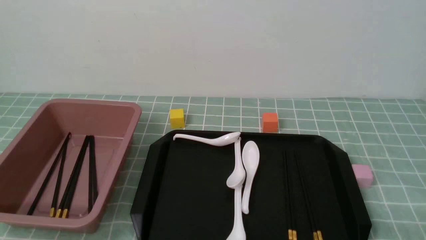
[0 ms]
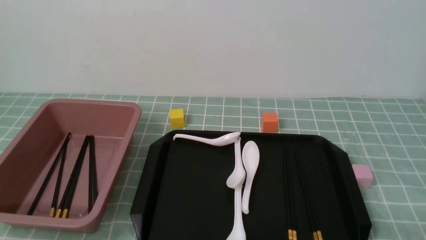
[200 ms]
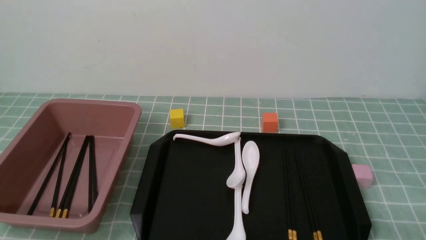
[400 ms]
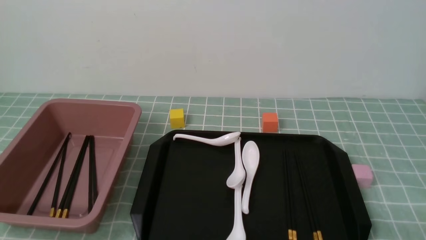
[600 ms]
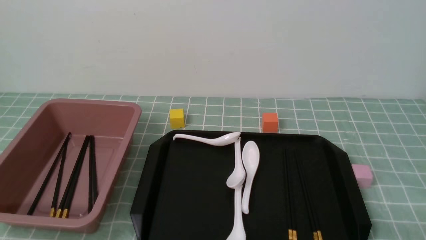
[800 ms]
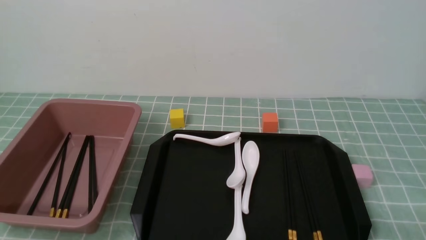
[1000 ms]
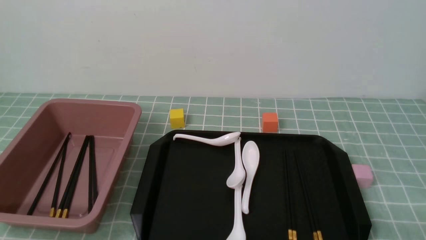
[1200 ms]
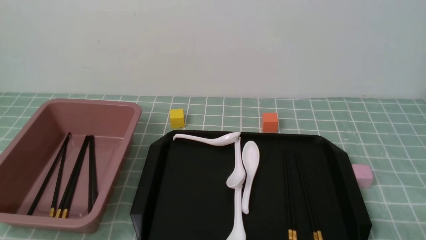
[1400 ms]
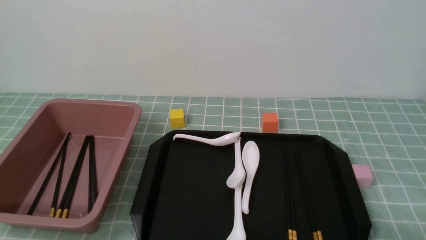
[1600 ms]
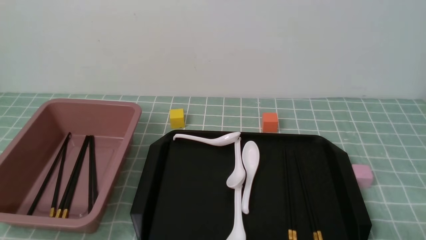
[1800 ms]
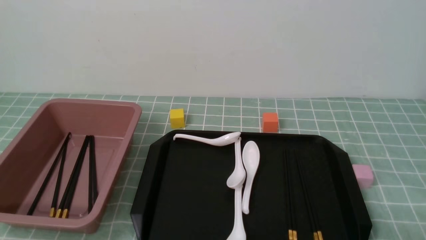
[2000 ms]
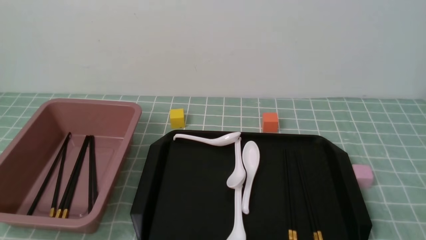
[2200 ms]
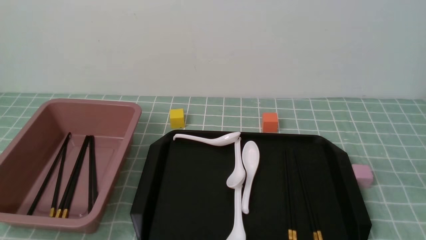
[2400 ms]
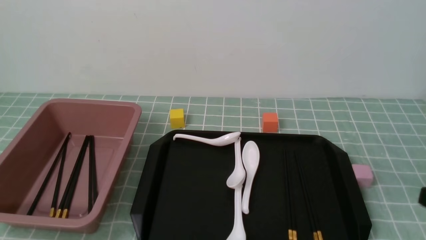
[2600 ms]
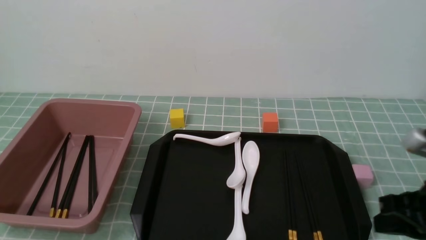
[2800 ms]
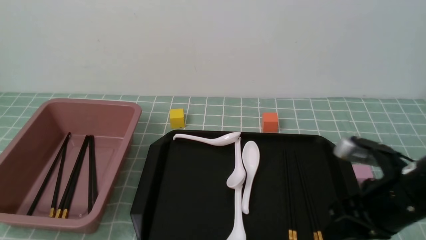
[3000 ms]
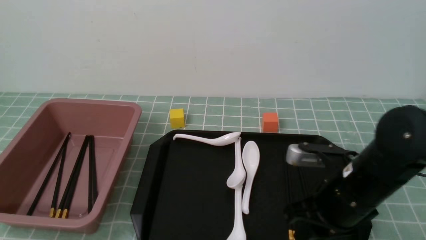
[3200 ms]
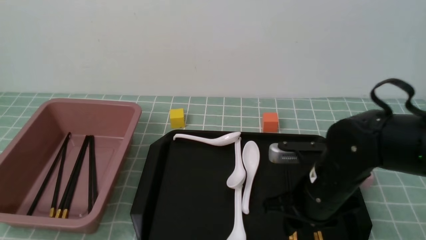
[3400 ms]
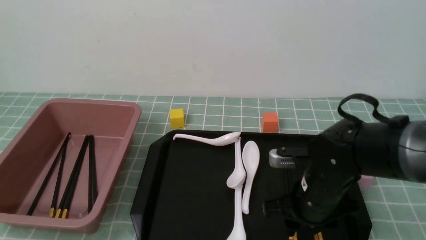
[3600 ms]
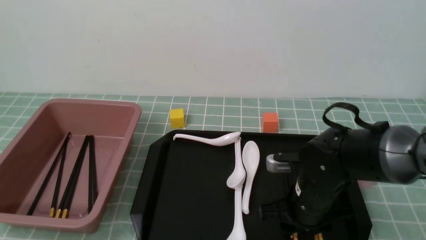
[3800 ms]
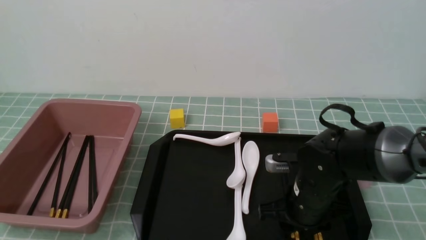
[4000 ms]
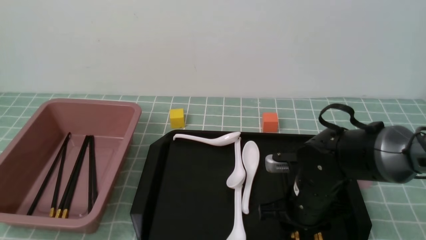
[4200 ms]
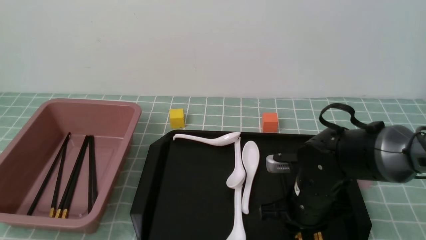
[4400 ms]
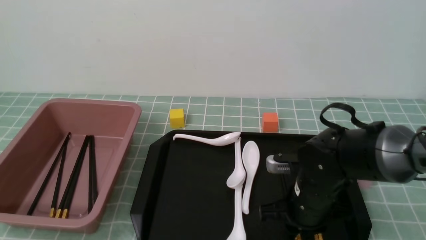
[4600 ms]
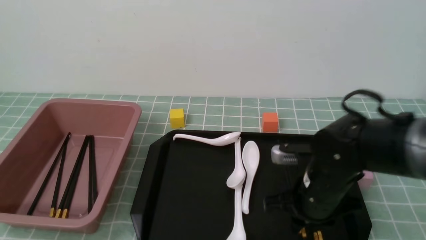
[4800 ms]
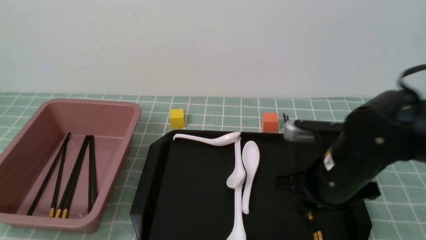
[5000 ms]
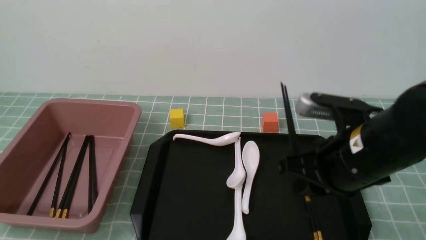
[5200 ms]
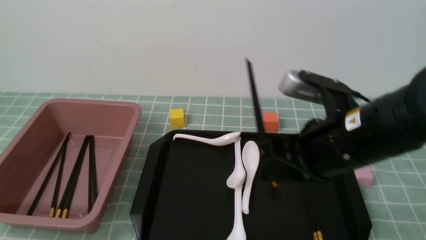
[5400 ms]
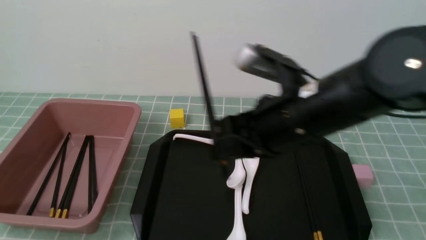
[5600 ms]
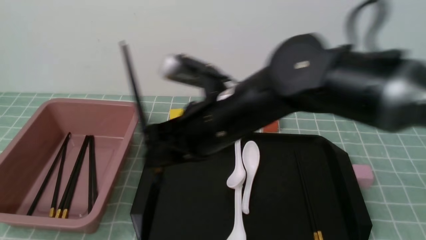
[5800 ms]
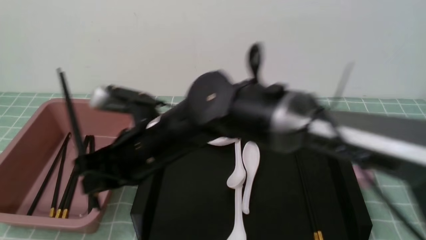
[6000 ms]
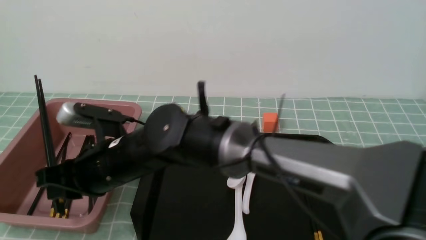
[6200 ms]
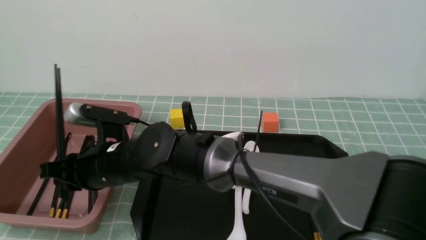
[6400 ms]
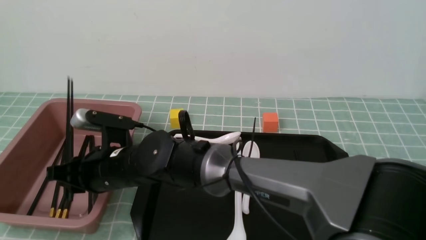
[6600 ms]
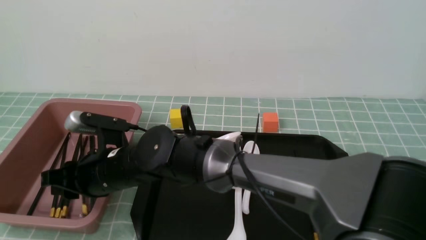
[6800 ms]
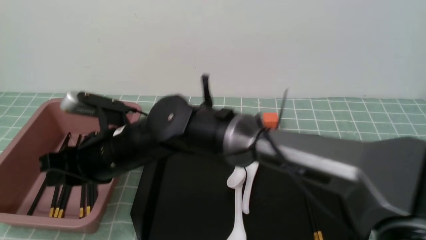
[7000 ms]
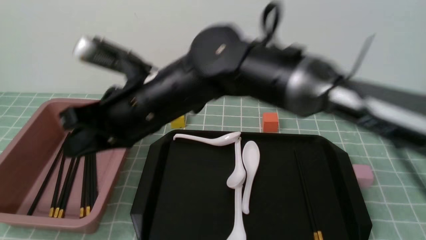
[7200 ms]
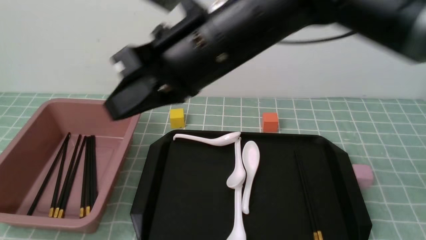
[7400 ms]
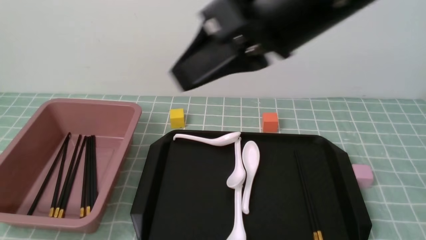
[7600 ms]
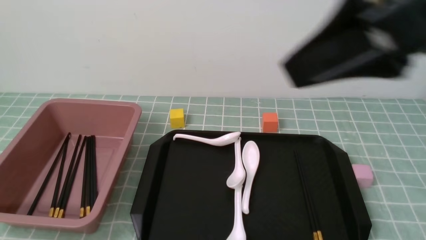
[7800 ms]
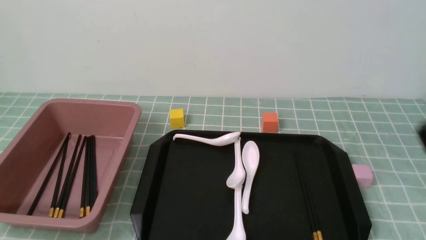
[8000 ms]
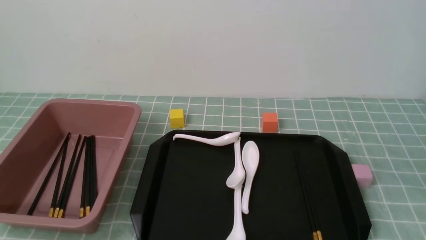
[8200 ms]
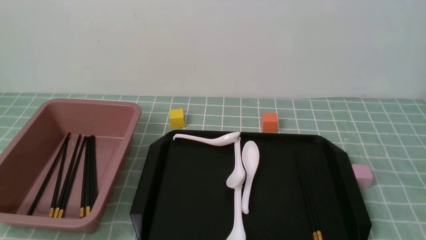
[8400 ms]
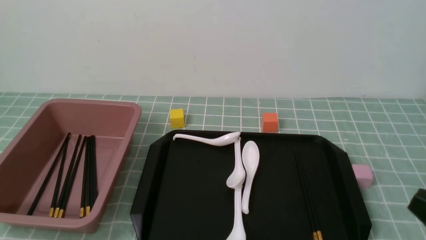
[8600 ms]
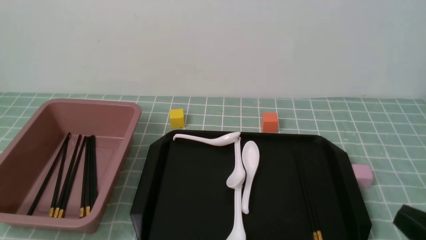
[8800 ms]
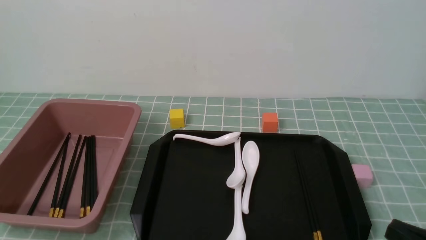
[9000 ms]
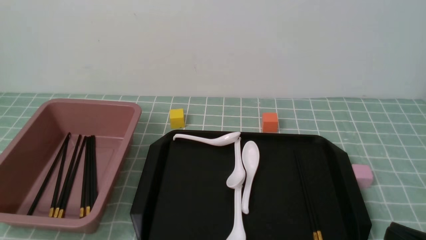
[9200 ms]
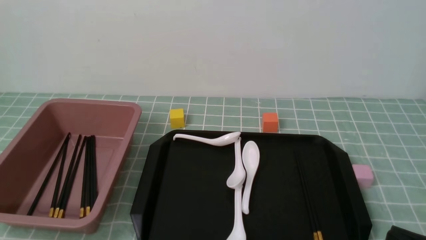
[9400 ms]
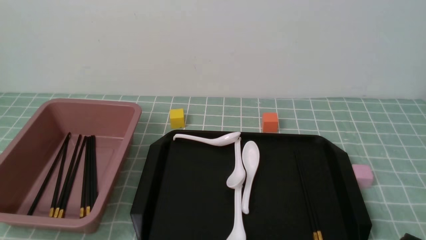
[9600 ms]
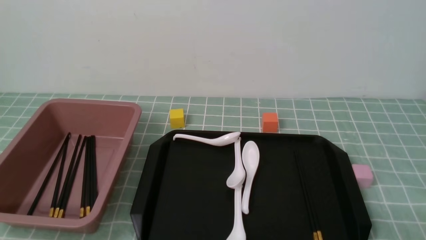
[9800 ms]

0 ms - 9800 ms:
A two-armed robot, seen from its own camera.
Step, 0 ms - 5000 ms: use the right arm to grab a pair of chopsticks.
Step, 5200 ms - 7000 ms: use the right arm to put the chopsticks into the lunch box.
1400 ms - 2800 ms: The right gripper goes roughly 15 cm forward and upward, and closes up.
2800 ms - 4200 ms: The right gripper shifts some 20 cm to the left, downward and forward, and opens up.
4200 ms - 5600 ms: The right gripper goes about 15 cm upward, and closes.
5600 ms - 7000 ms: The right gripper shifts about 20 cm to the left.
7000 ms - 8400 ms: The right gripper is displaced to the right and backward by approximately 40 cm, and closes its fingers.

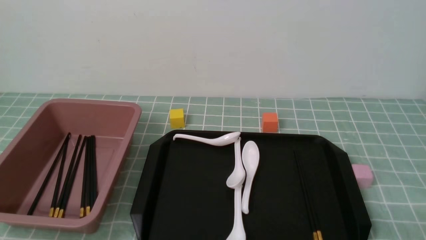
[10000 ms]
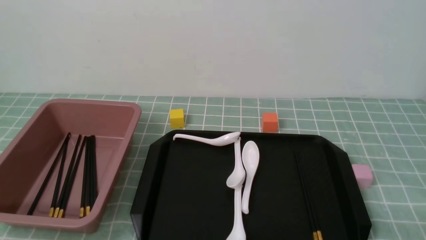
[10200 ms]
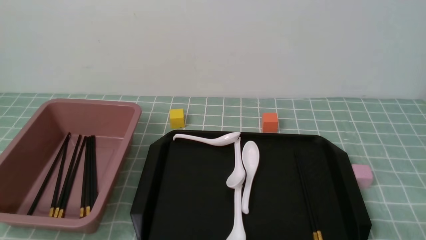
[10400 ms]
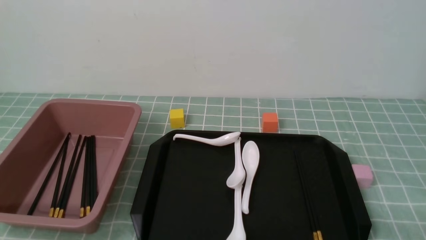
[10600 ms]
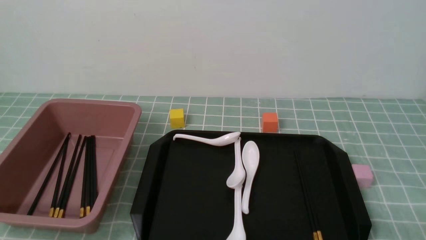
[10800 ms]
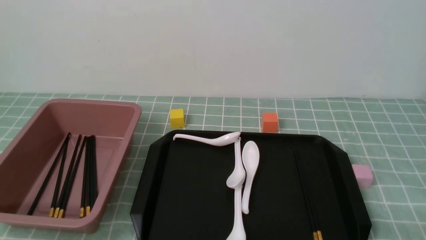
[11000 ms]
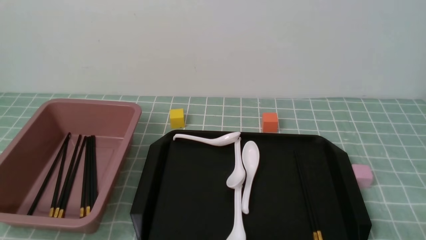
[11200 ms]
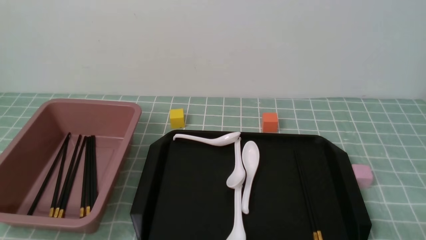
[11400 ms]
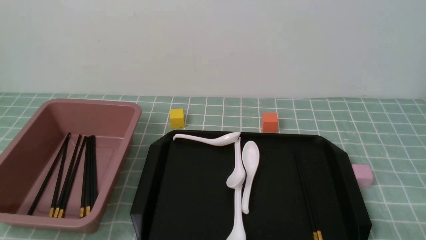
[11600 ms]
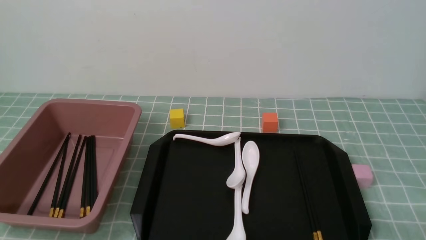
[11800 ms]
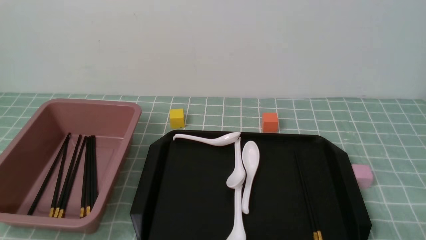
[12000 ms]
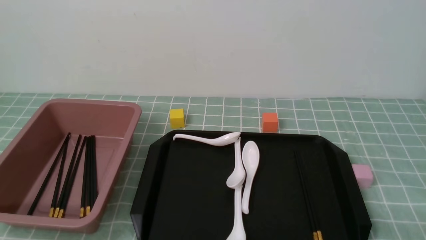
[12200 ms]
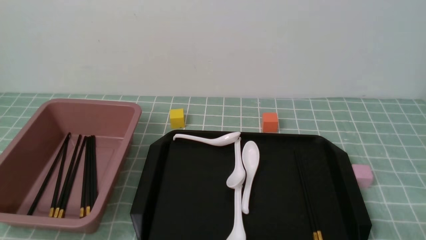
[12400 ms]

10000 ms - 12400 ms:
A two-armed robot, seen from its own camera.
11200 ms - 12400 ms: Both grippers stay about where they are.

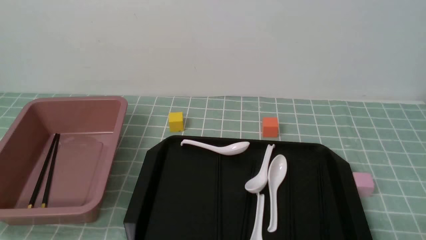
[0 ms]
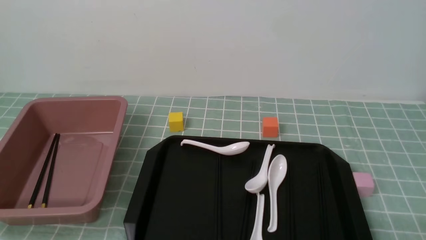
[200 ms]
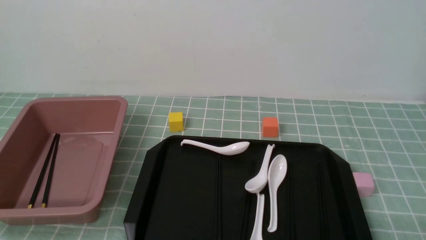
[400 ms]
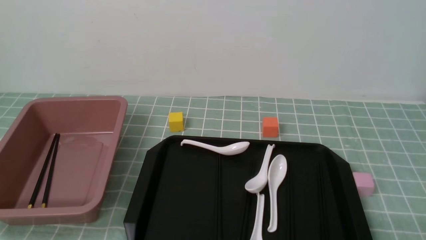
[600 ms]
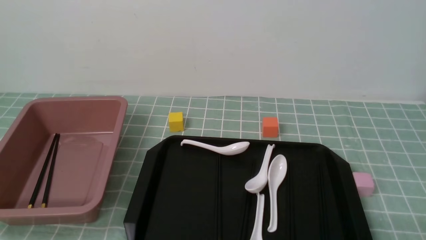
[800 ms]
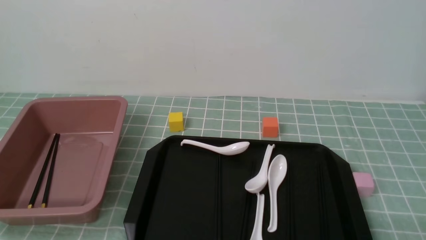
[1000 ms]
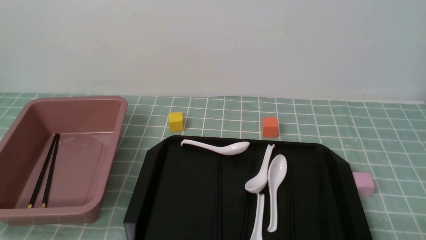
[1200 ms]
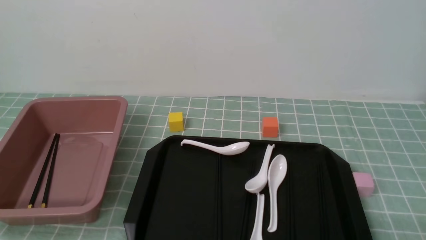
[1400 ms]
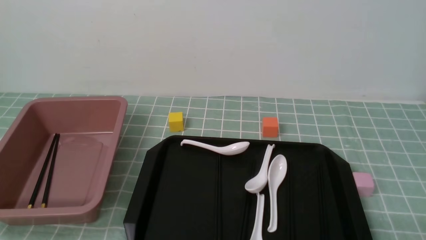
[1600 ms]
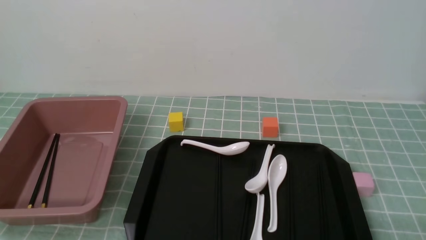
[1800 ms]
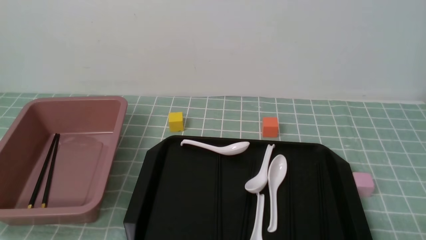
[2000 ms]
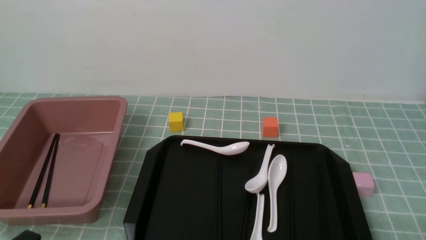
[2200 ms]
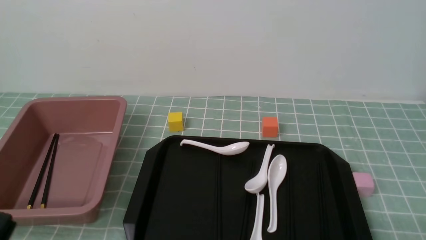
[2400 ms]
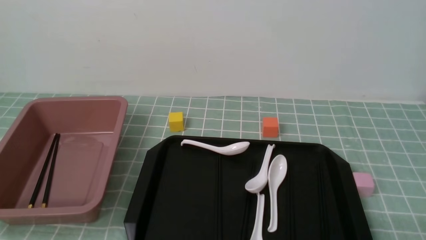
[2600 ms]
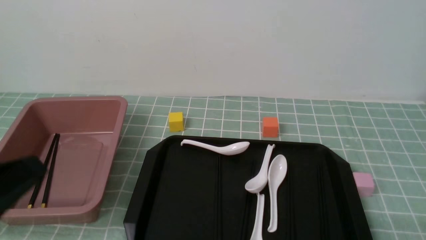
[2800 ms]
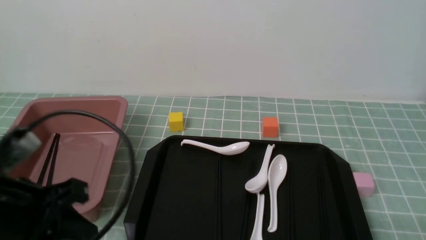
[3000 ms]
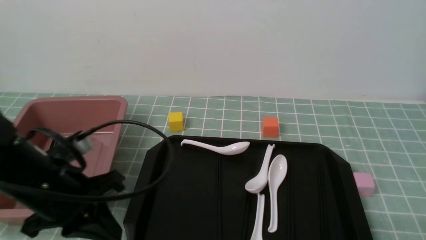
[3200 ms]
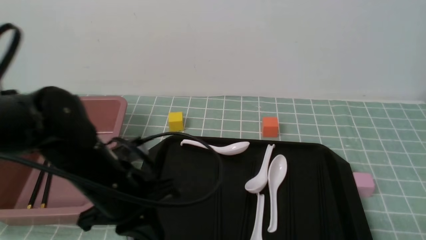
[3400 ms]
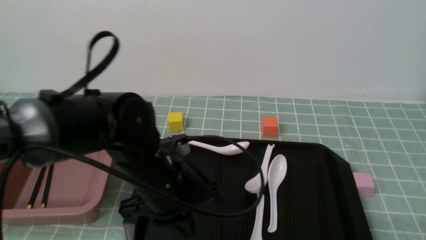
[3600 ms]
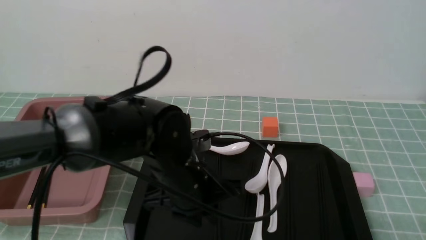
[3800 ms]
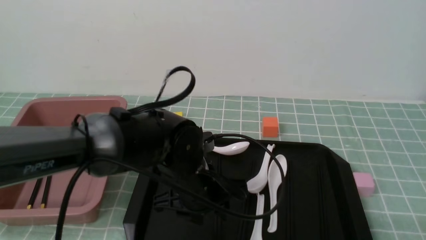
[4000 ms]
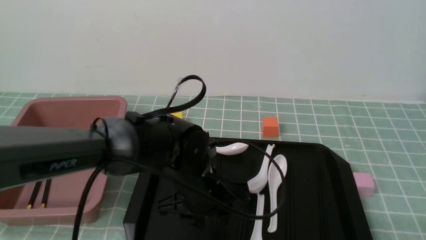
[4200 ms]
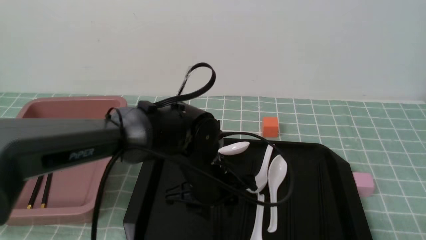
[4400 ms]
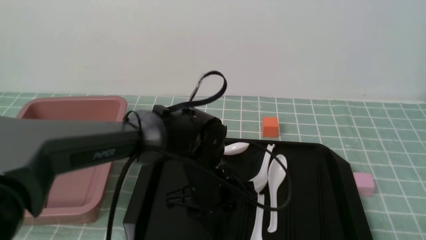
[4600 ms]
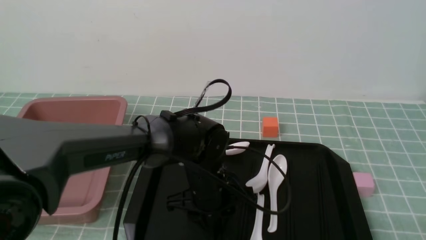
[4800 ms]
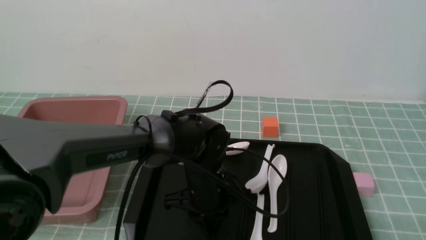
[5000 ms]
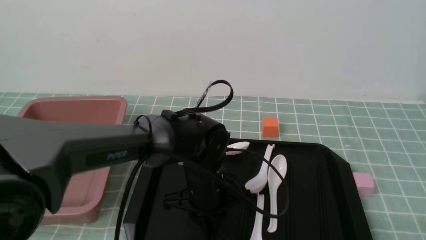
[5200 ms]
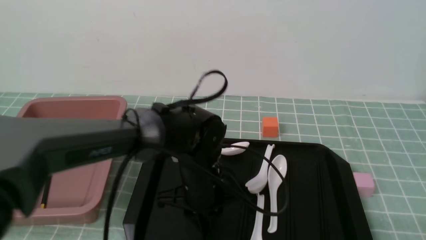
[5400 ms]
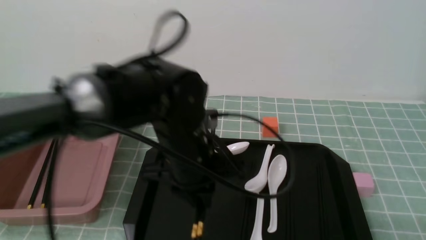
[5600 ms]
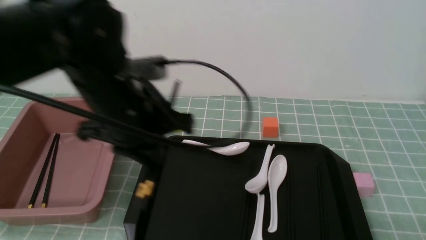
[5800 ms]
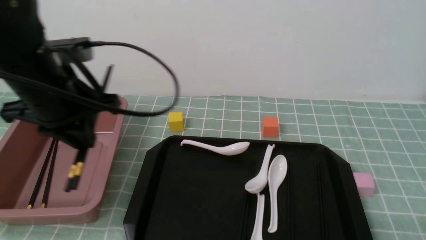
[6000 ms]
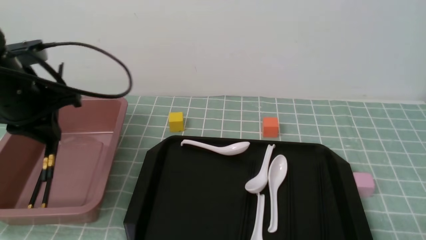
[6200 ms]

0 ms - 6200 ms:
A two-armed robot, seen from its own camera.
Step, 0 ms - 5600 ms: use the left arm to grab a pair of chopsticks.
1600 ms - 3200 ms: The left gripper heads forward, upward and to the right, covering roughly 20 cm.
3200 ms - 4600 ms: The left gripper shifts approximately 20 cm to the right, downward and forward, and opens.
4600 ms - 6200 ms: The left gripper shifts roughly 30 cm to the left and upward, and closes up.
